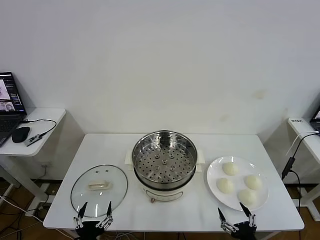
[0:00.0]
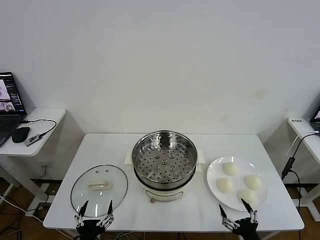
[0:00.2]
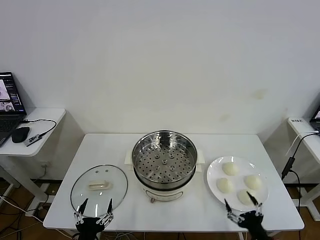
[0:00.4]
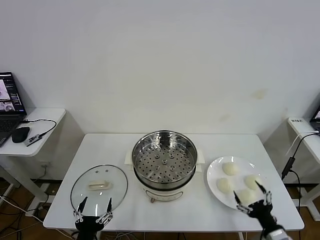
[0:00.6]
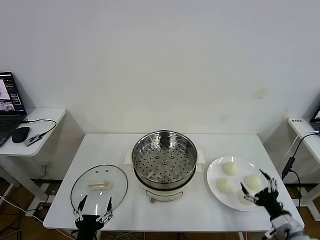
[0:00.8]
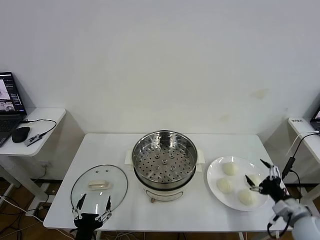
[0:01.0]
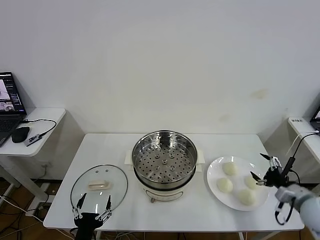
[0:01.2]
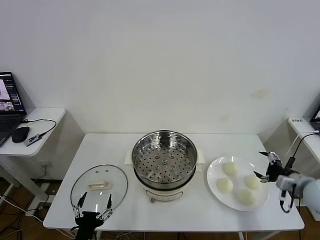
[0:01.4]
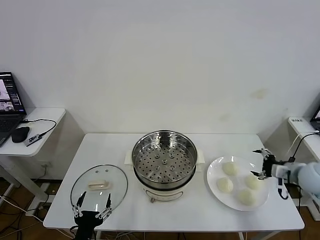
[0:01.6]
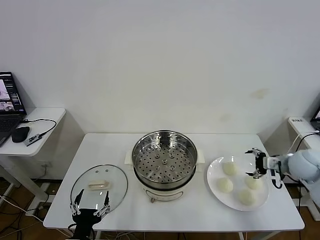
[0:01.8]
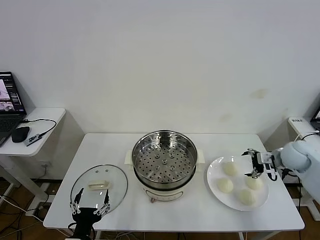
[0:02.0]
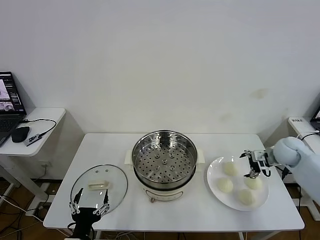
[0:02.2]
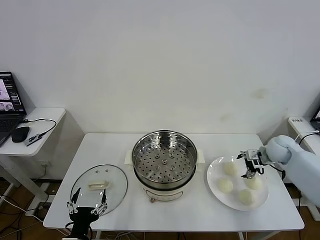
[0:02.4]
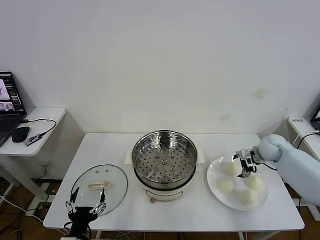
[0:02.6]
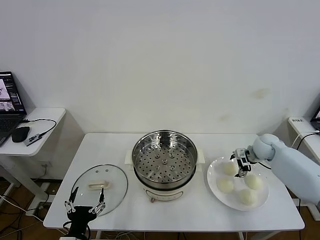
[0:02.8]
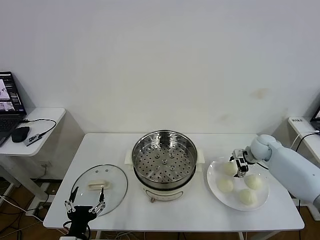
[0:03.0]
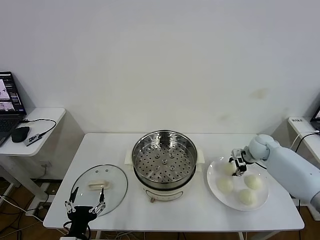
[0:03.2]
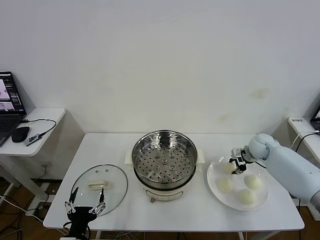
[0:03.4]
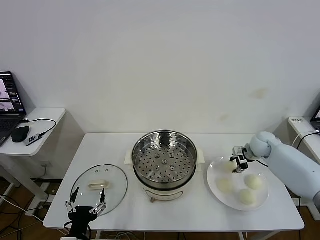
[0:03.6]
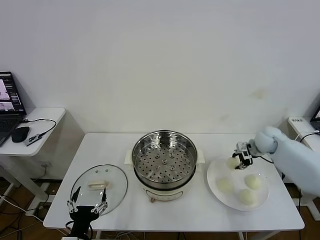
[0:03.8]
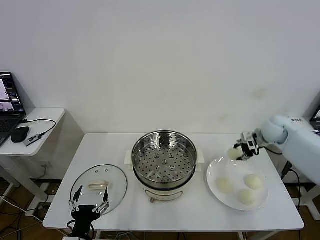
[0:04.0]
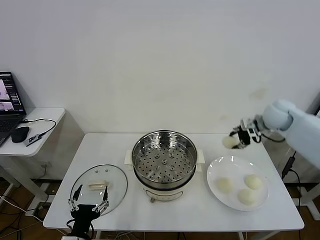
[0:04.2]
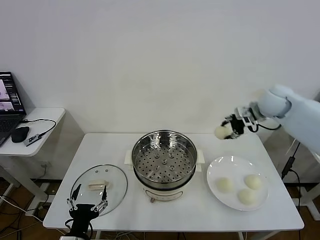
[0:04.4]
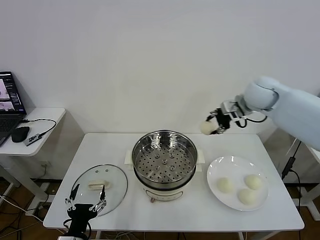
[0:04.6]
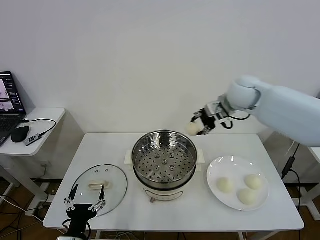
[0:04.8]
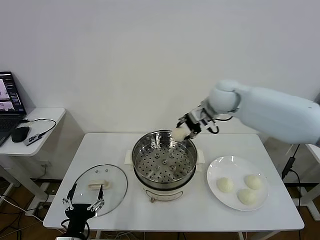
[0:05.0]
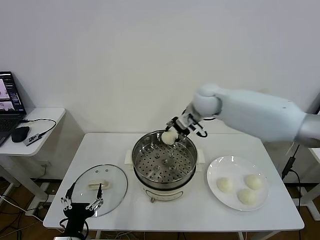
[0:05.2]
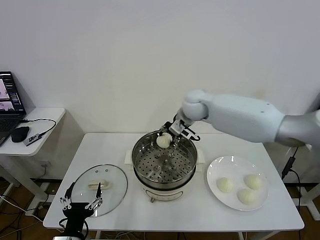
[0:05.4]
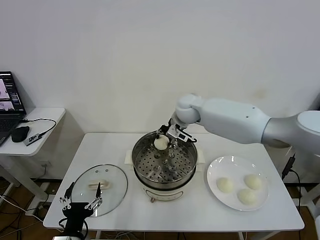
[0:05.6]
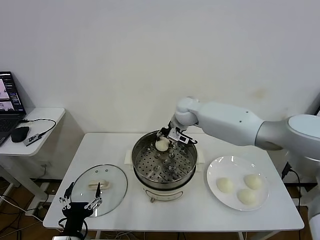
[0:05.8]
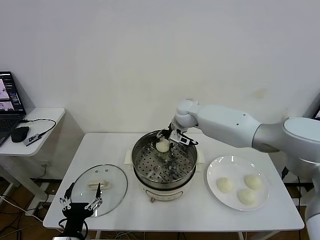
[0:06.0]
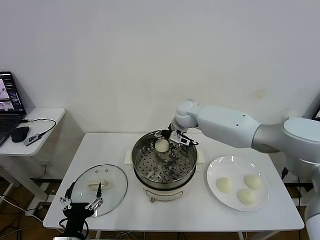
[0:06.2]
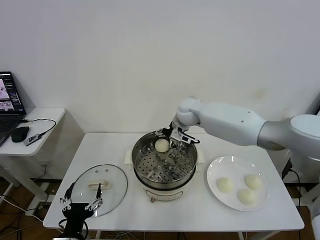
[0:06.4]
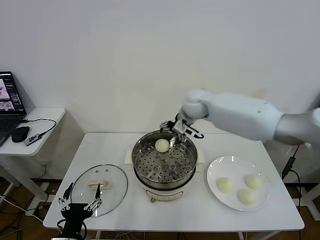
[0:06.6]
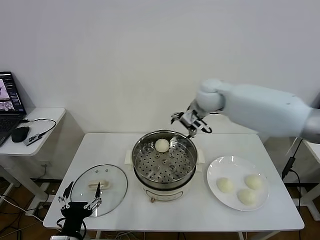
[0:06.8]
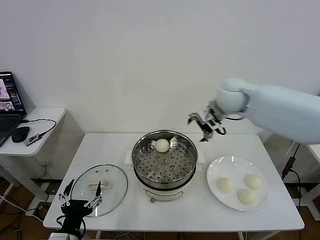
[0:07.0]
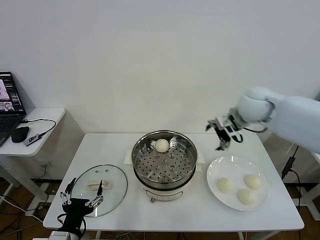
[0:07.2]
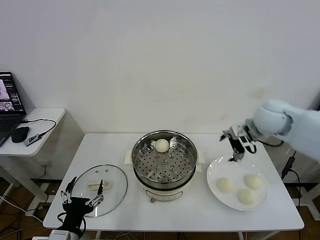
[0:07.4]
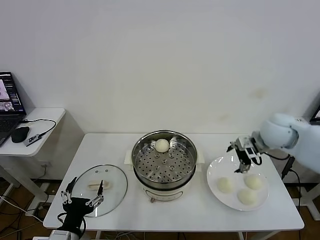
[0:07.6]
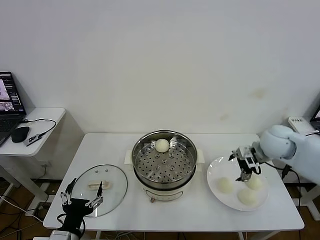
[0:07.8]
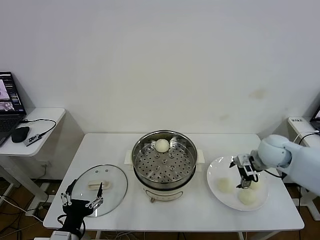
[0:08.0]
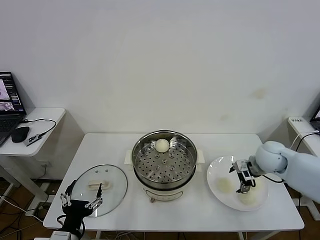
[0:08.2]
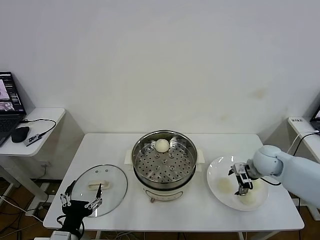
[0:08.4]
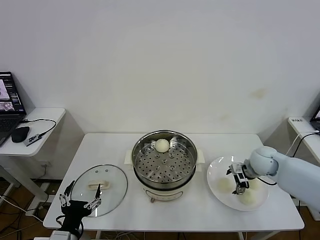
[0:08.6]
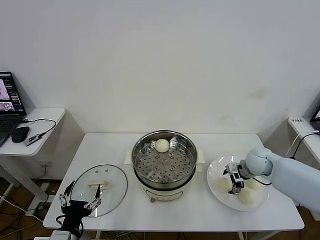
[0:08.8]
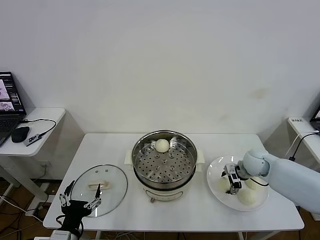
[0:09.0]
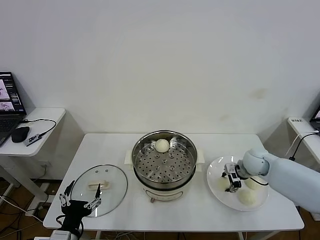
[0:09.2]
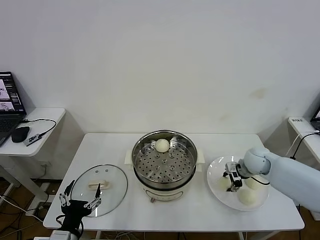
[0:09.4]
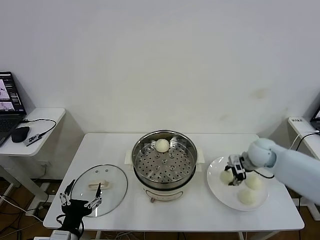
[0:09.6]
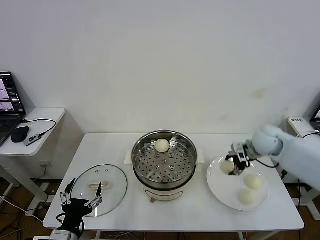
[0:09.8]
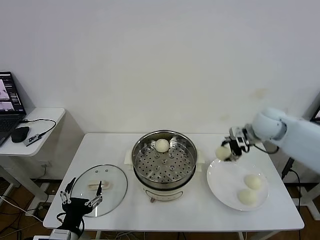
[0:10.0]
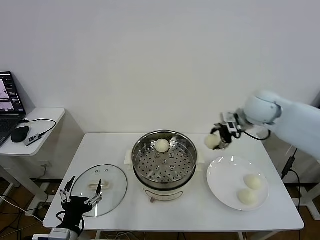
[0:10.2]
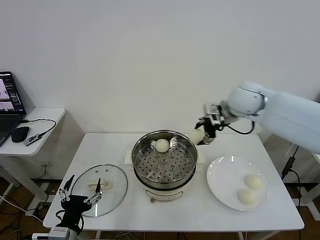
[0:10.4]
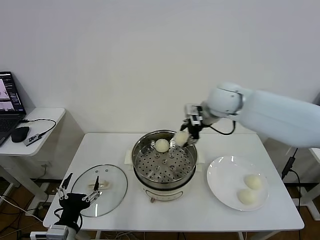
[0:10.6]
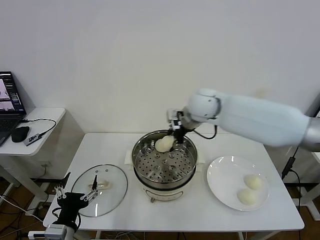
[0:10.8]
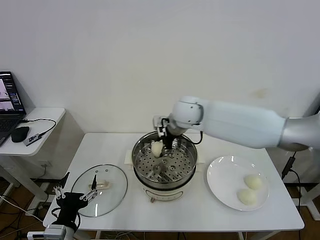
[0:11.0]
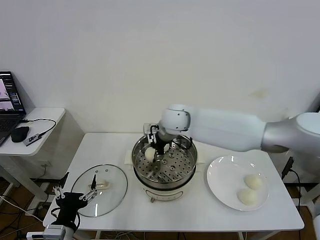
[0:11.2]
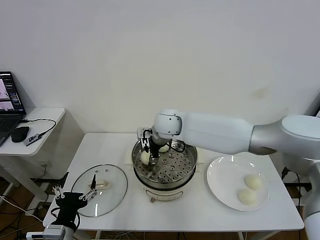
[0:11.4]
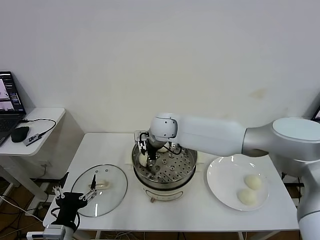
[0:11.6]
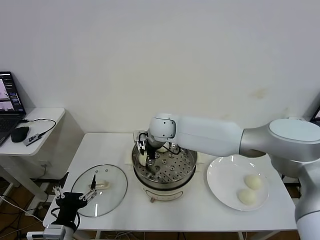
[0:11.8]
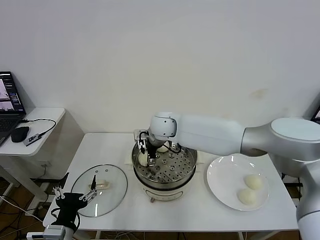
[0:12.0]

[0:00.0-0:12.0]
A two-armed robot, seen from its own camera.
Task of the whole recording: take steamed baozi put them in steamer then cover it.
Step, 0.0 to 3.2 s: Grasp the baozi in the plate with right gripper.
Step, 3.6 to 6.0 s: Place the baozi on the steamer with right gripper.
Step, 6.2 to 9.2 s: Grasp the baozi in the plate with right gripper.
Step, 9.4 to 11.8 s: Place the baozi on the steamer with right gripper.
1.6 to 3.0 s: The right gripper heads forward, covering some 15 cm.
3.0 to 4.4 s: The right gripper is displaced upward by some 20 cm, and closes.
4.4 to 6.0 s: The right gripper goes about 25 cm to the left.
6.0 to 7.6 s: The right gripper travels to the right and backward by approximately 30 cm, and opens.
7.6 to 9.0 s: The right gripper goes some 15 cm downward.
9.0 to 10.4 s: The right gripper shifts approximately 25 cm upward and to the left, and closes its fingers.
10.4 to 12.0 s: The right gripper shifts some 25 cm to the left and downward, and opens up.

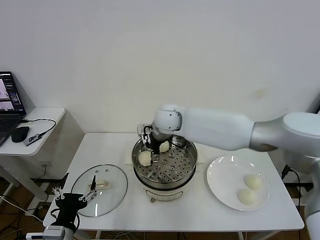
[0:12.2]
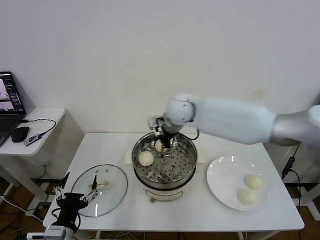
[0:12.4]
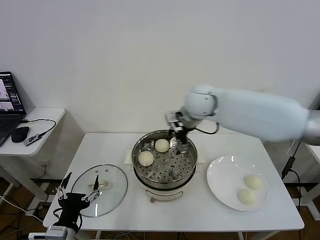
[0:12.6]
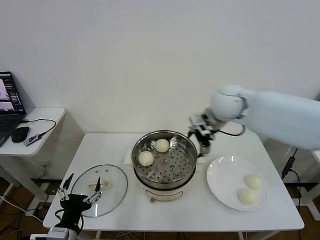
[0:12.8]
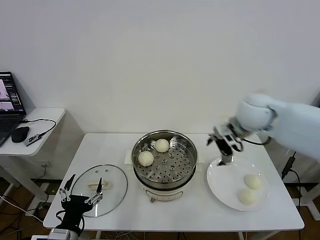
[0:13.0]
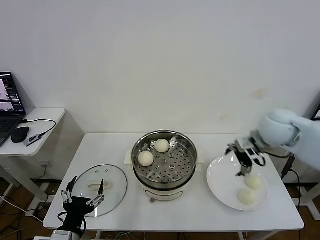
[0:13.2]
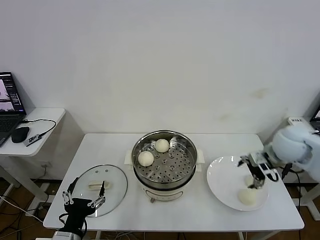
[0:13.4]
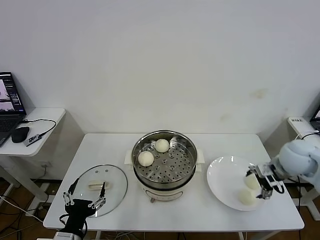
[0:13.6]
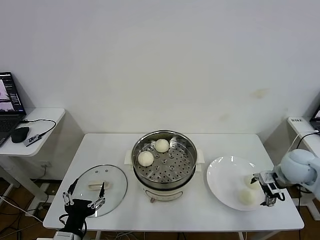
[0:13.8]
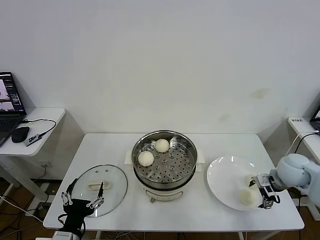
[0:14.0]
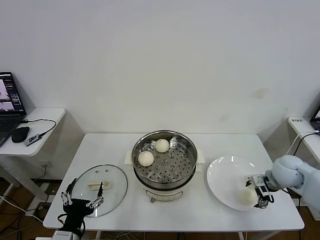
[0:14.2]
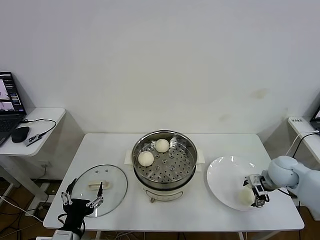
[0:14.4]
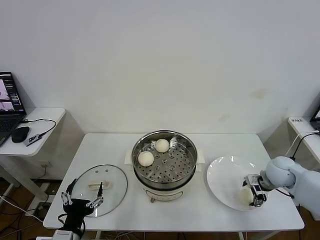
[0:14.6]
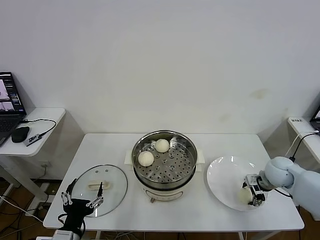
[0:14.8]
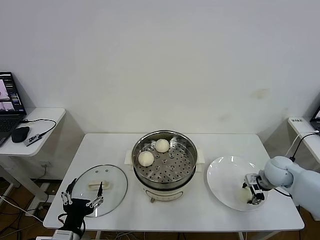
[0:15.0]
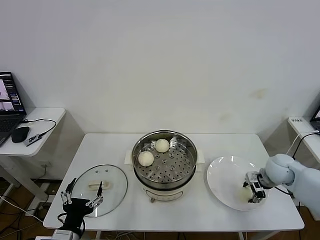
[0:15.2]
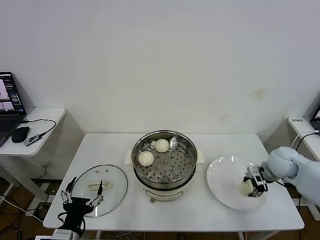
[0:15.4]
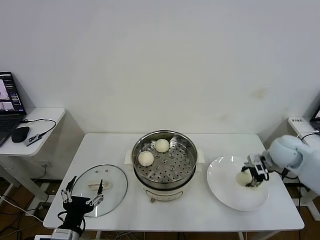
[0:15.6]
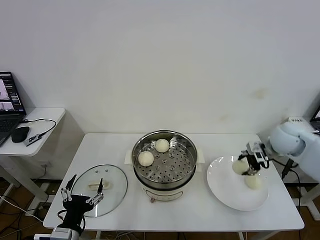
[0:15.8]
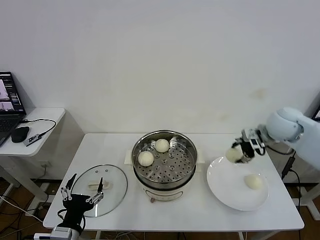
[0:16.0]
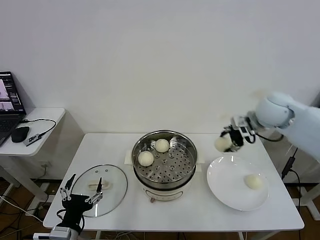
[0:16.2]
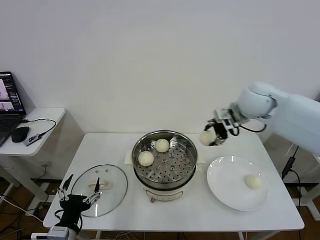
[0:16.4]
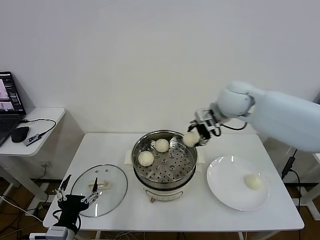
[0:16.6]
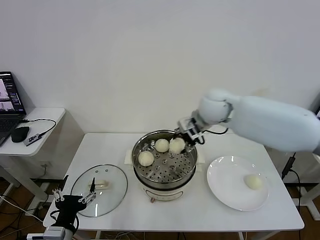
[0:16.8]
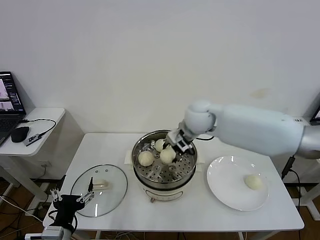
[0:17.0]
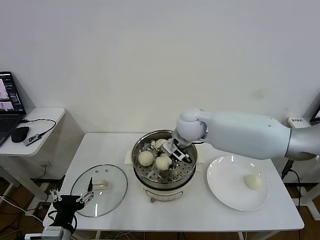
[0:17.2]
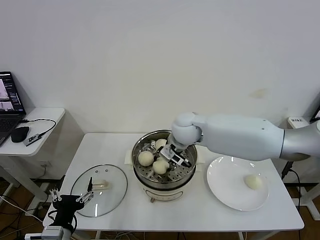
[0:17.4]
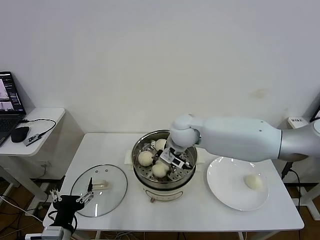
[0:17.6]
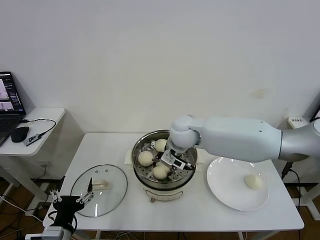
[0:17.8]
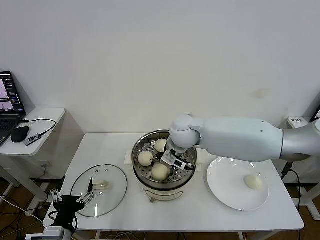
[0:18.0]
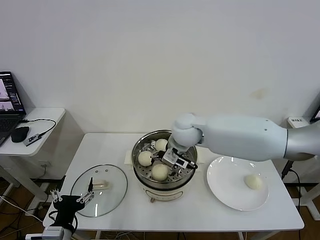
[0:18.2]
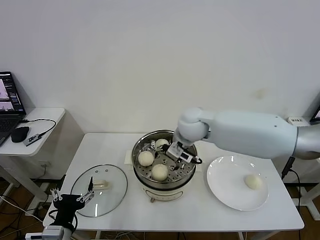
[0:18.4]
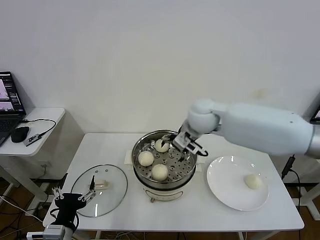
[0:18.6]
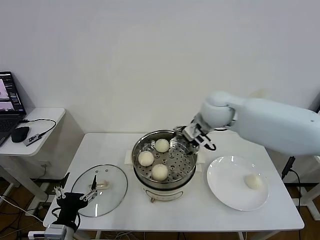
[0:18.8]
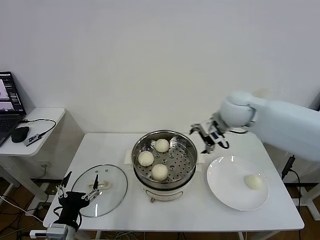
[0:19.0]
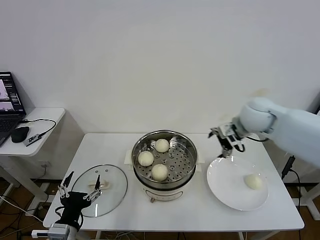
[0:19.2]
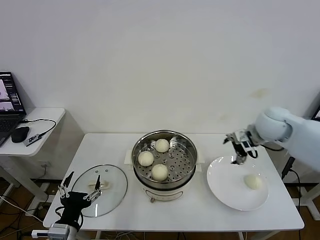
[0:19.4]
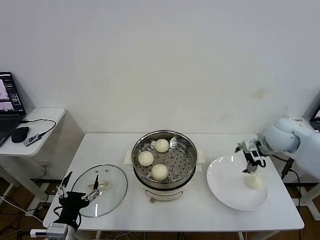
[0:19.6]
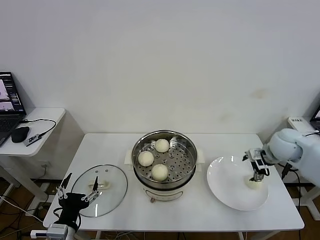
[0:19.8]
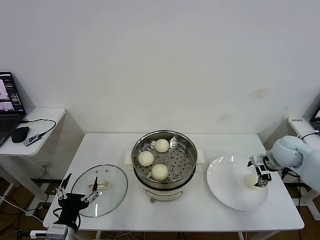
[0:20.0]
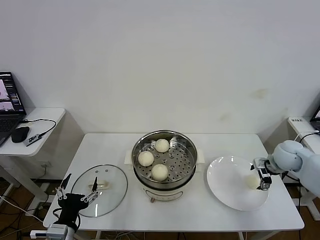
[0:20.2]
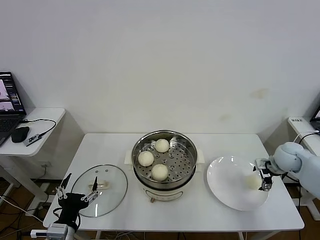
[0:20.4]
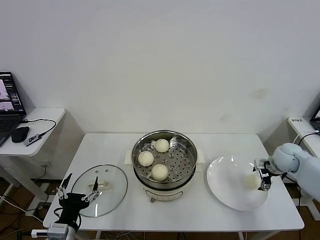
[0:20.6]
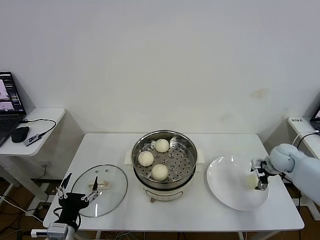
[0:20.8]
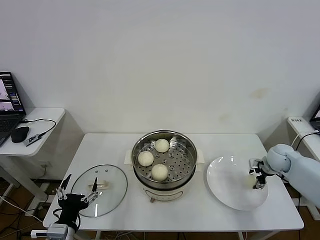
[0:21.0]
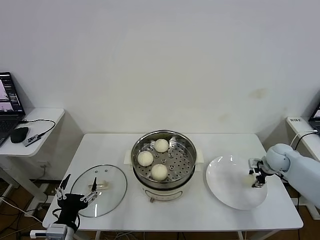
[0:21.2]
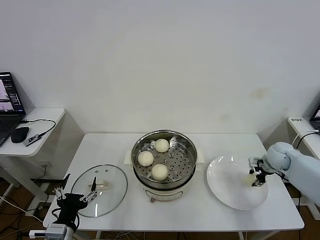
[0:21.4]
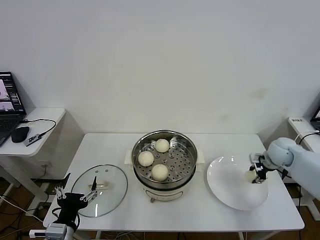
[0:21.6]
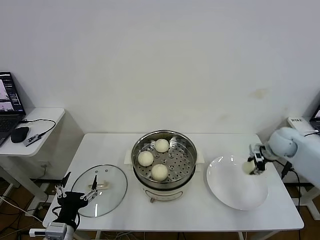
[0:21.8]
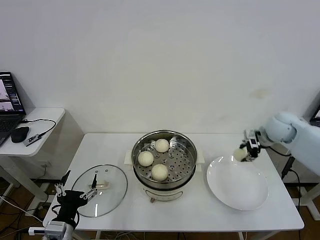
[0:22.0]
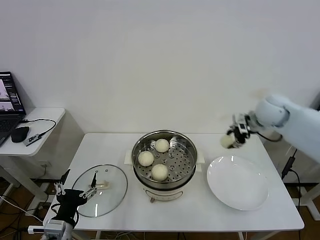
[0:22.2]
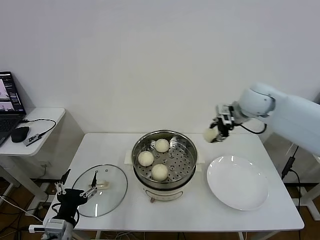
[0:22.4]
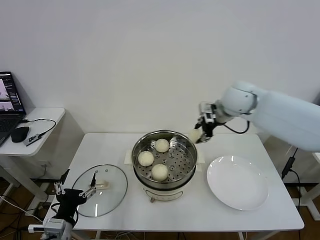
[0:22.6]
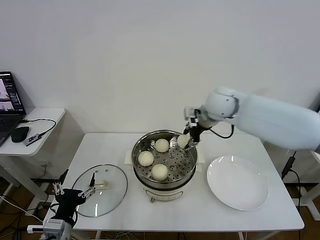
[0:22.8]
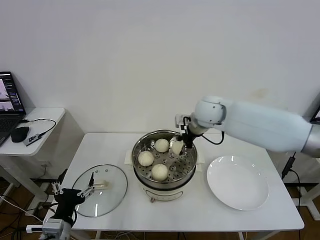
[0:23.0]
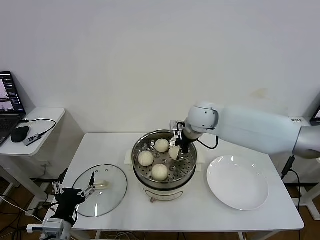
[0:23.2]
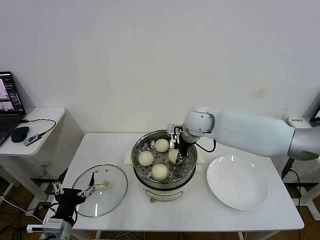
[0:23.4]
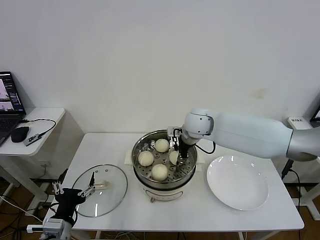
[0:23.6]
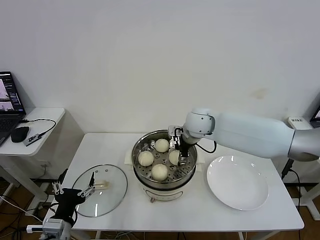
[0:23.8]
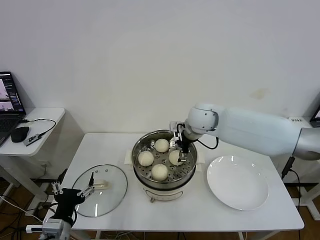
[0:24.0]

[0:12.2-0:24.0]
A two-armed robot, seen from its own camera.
Task of the whole recording: take steamed baozi put them in steamer then cover it.
Step, 12.2 to 15.2 s: Grasp the baozi in the plate with right gripper.
Step, 15.4 to 18.0 s: Place the baozi on the steamer with right gripper.
Step, 18.2 to 21.2 s: Grasp the baozi in the plate with right gripper.
Step, 21.4 to 23.8 s: Place the baozi on the steamer with right gripper.
12.2 to 13.6 s: The right gripper goes approximately 35 cm to the right.
13.6 to 15.2 s: The right gripper heads downward, covering some 10 cm, and closes.
15.2 to 16.6 s: The right gripper shifts about 30 cm upward and to the left.
16.6 to 18.2 s: The right gripper shifts approximately 15 cm to the left and downward, and opens up.
18.2 to 19.6 s: The right gripper is displaced to the right by roughly 30 cm.
19.6 to 21.0 s: The right gripper shifts roughly 15 cm downward and to the right, and closes.
21.0 to 22.6 s: The right gripper travels upward and to the left by roughly 30 cm, and closes its fingers.
22.6 to 24.0 s: The right gripper moves to the left and downward, about 10 cm, and opens up.
